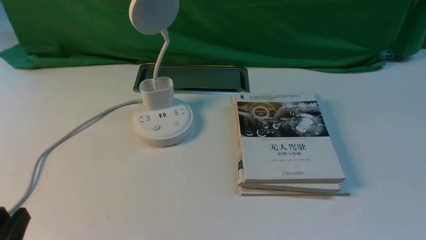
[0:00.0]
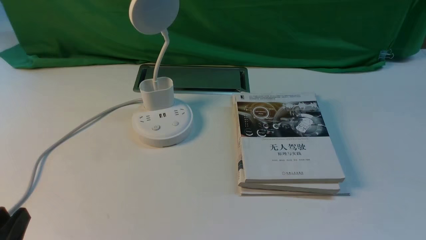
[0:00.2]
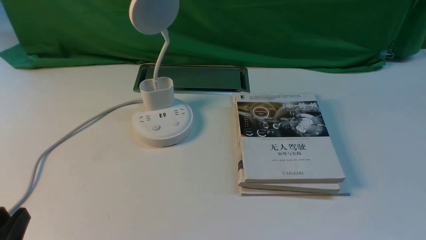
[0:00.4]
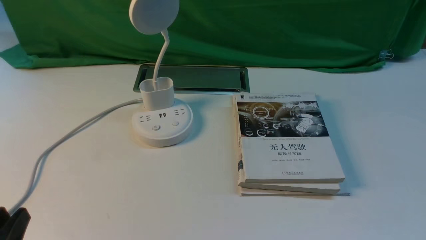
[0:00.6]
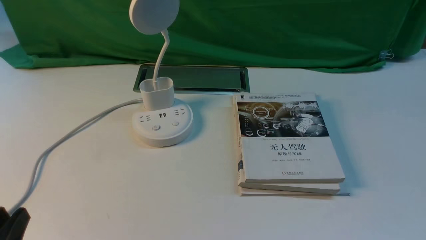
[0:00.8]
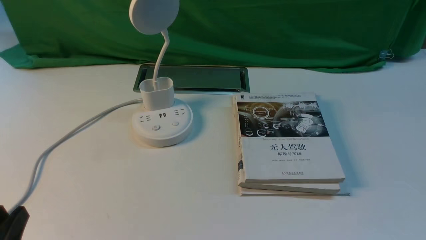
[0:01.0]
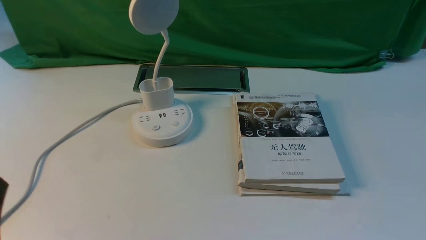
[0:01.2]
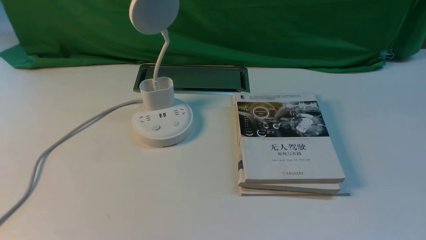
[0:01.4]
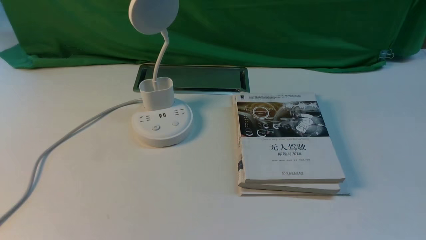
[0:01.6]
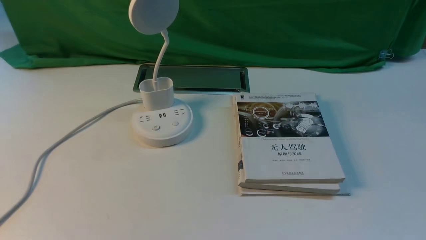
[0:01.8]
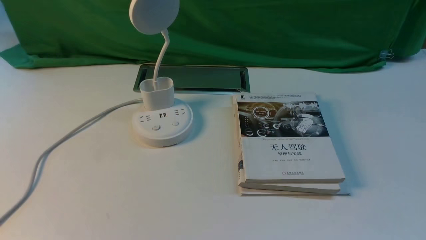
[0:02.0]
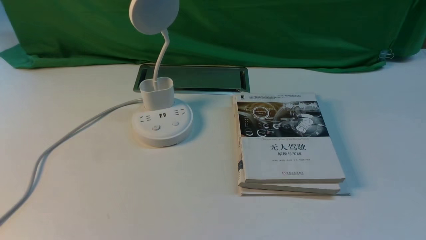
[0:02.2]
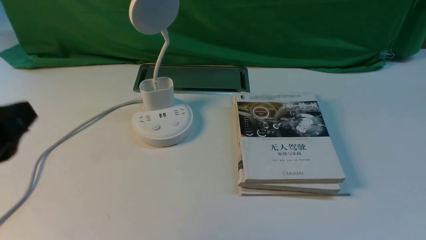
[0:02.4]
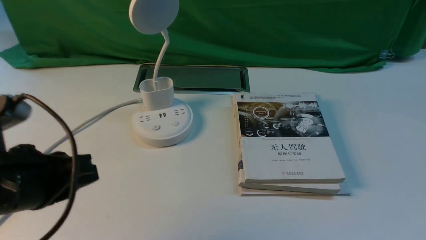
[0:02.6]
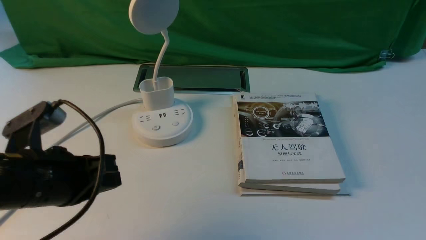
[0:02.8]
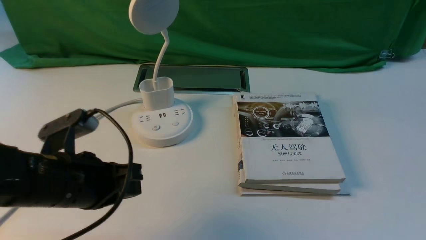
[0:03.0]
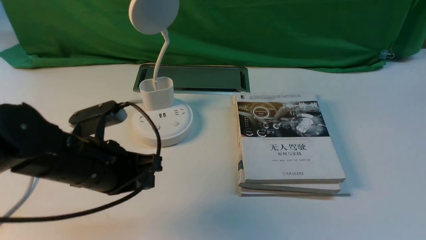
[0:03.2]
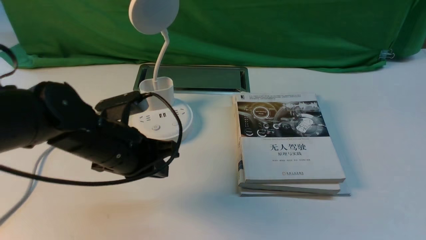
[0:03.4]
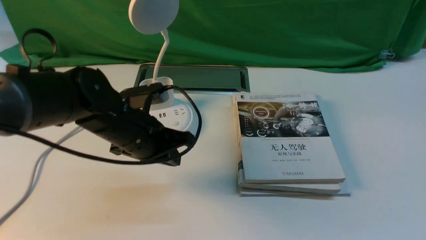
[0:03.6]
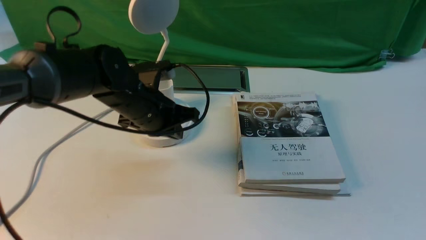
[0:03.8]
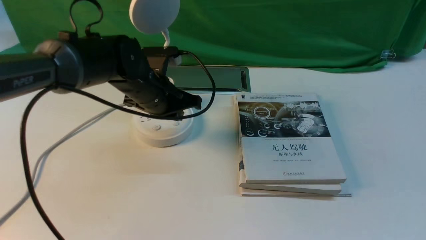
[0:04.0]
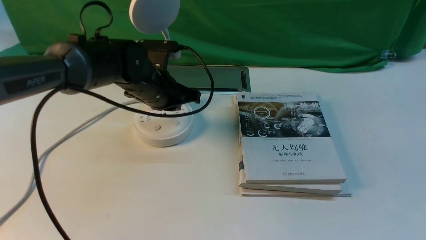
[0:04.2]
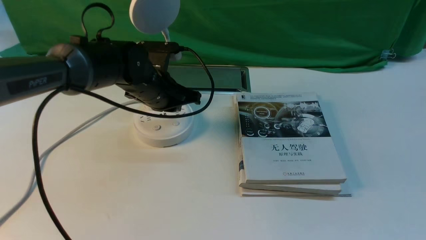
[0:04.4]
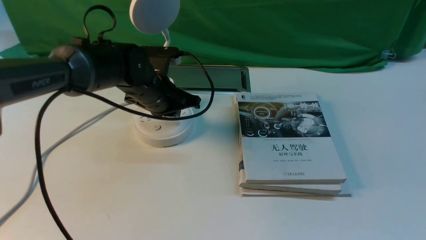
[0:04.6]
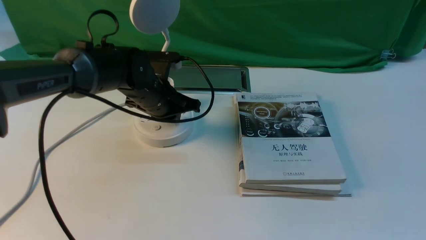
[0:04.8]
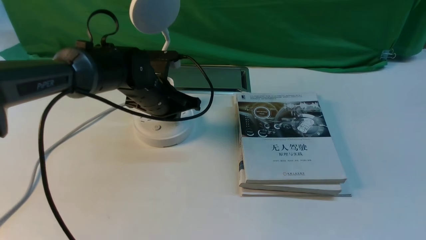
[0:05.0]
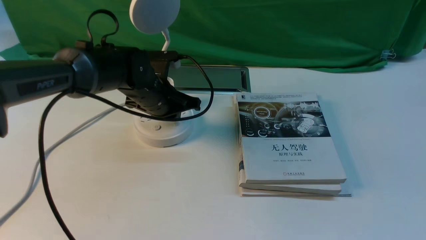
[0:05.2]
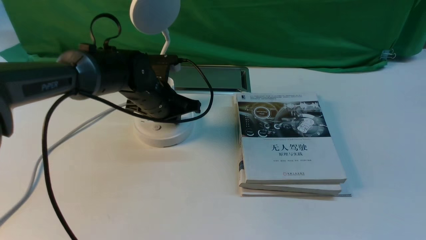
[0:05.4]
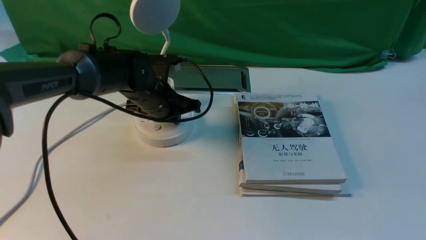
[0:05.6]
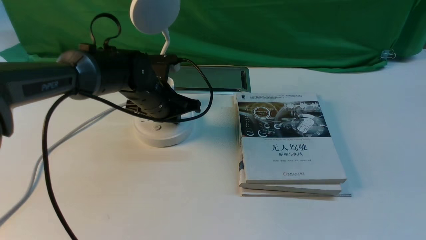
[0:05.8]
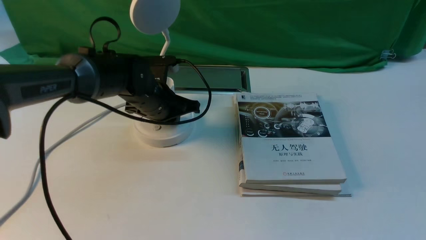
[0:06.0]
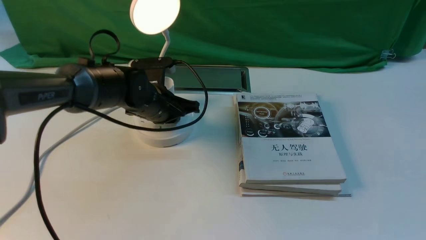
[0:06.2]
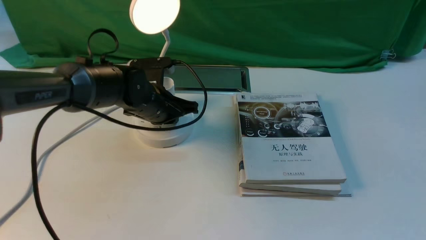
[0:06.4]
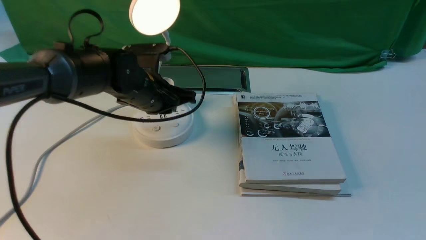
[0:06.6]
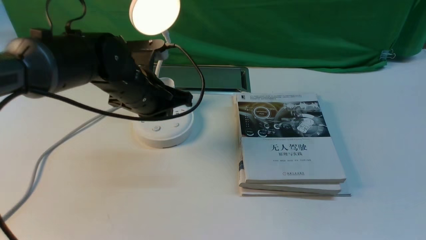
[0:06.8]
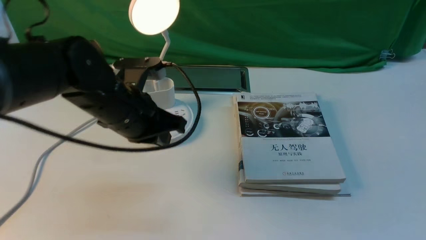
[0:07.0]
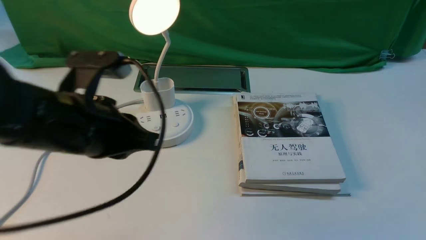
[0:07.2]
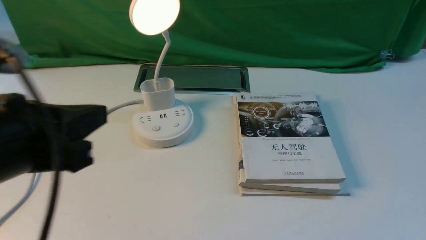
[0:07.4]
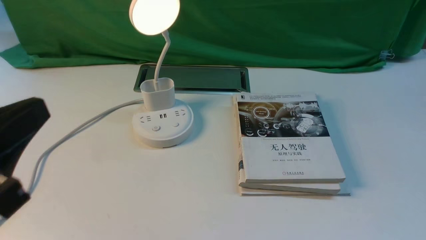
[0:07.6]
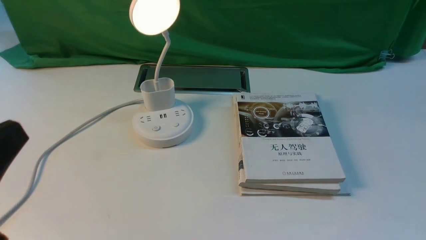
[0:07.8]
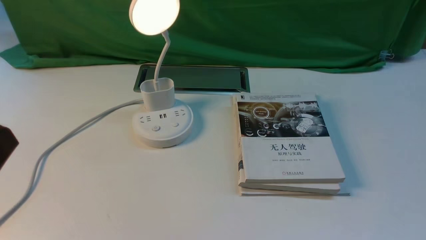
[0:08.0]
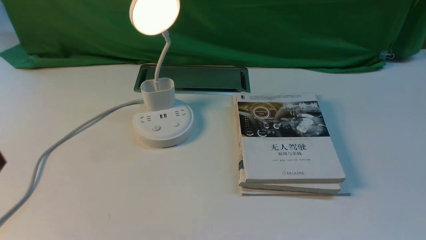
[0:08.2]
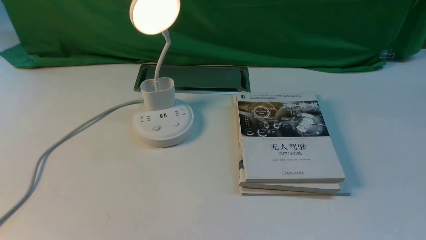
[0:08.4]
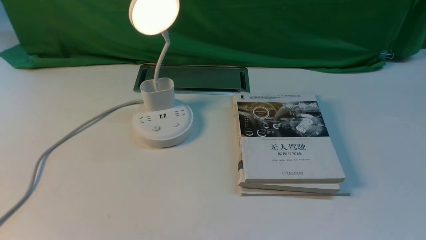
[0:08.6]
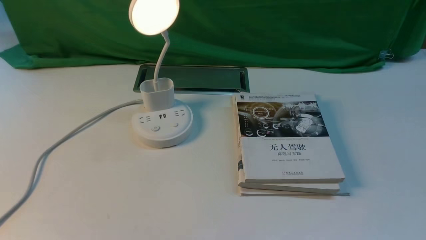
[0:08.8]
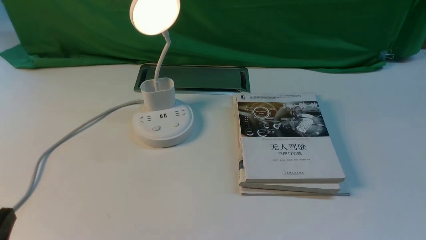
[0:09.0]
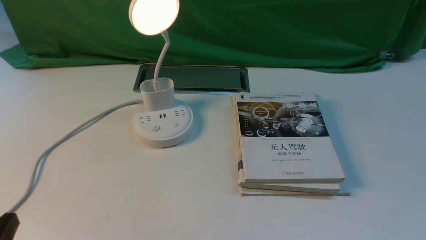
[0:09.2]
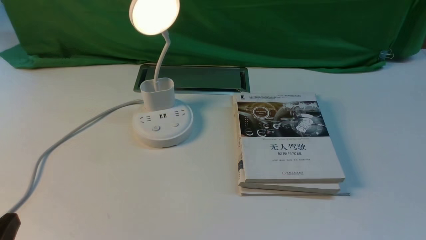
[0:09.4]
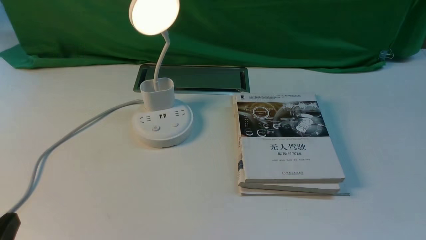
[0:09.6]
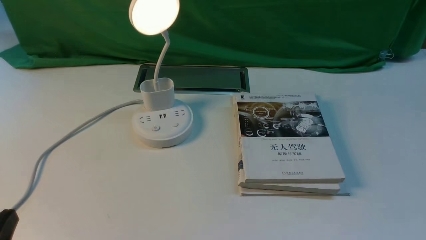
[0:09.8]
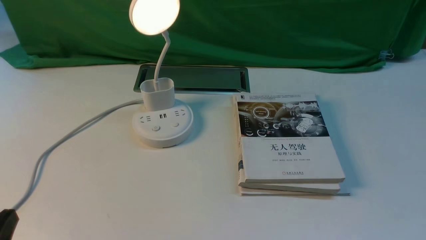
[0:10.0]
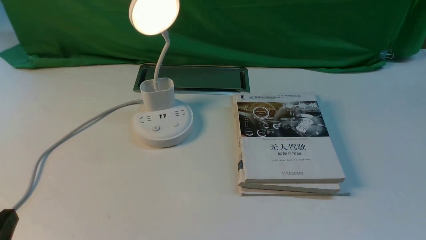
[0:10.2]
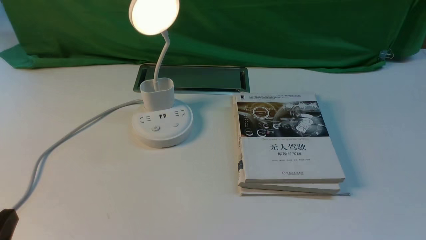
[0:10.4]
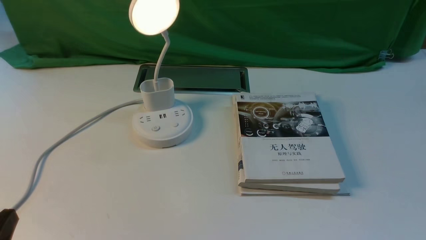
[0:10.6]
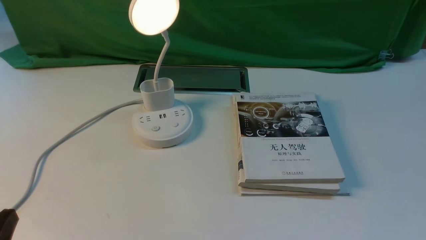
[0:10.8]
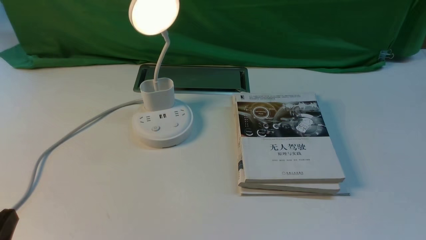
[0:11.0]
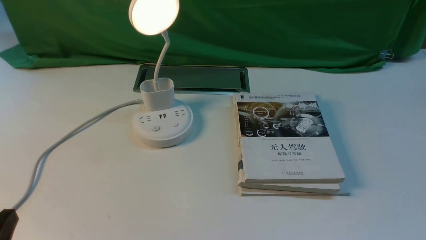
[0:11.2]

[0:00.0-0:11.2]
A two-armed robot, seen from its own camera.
Step, 0:00.0 to 0:07.0: use the left arm to press the button switch on the lamp holder.
0:00.0 to 0:01.6: The left gripper travels upward by some 10 cm.
0:01.6 to 0:03.2: The left gripper travels forward and to the right by roughly 25 cm, and closes.
0:03.2 to 0:04.8: The left gripper heads forward, covering about 15 cm.
0:04.8 to 0:06.4: The grippers stay close to where they were, moving slightly.
0:06.4 to 0:08.0: The left gripper is displaced backward by approximately 35 cm.
0:08.0 to 0:09.6: The left gripper is displaced downward by approximately 15 cm.
0:09.6 to 0:11.2: Both grippers stay about where they are.

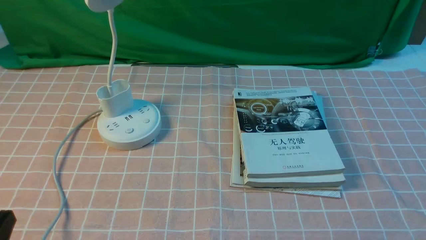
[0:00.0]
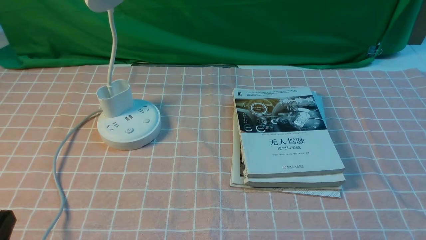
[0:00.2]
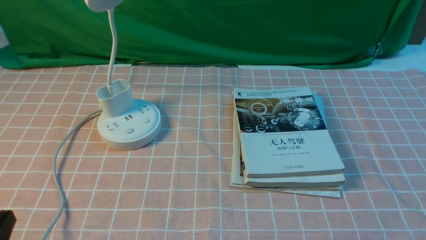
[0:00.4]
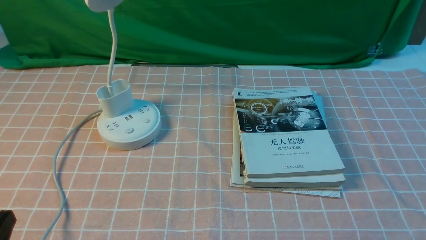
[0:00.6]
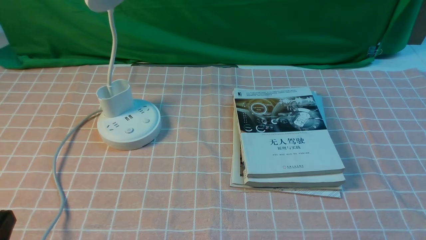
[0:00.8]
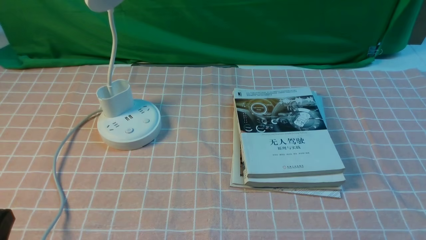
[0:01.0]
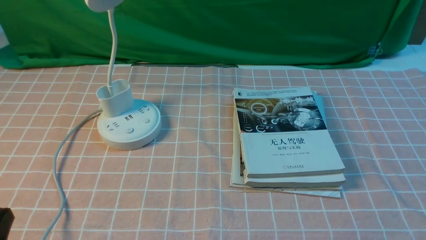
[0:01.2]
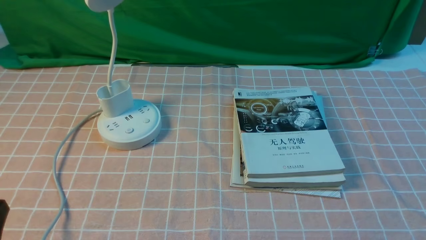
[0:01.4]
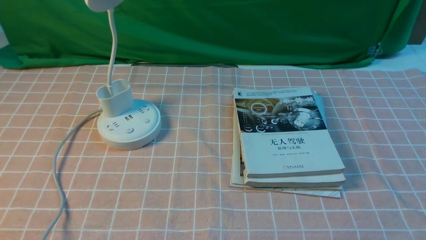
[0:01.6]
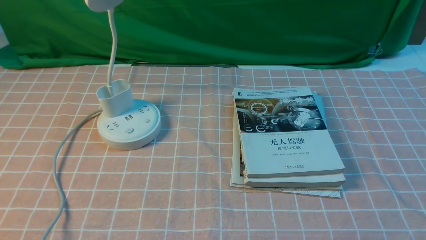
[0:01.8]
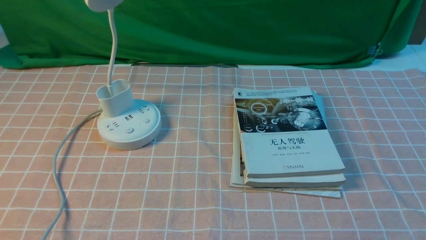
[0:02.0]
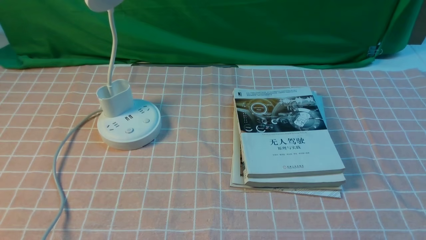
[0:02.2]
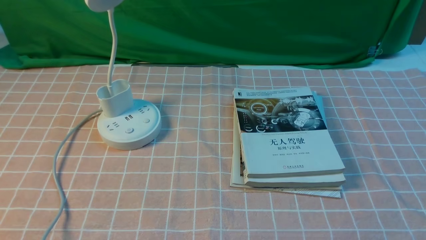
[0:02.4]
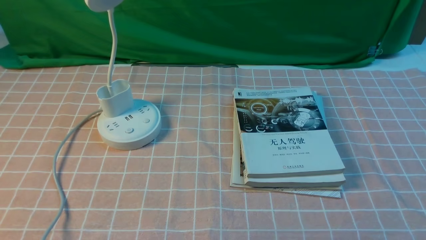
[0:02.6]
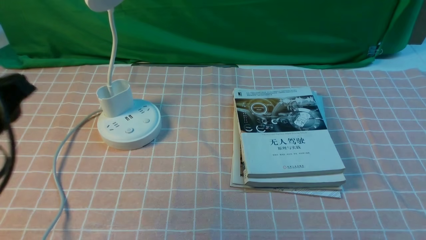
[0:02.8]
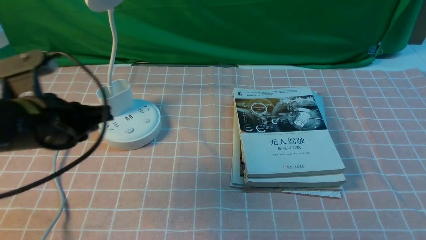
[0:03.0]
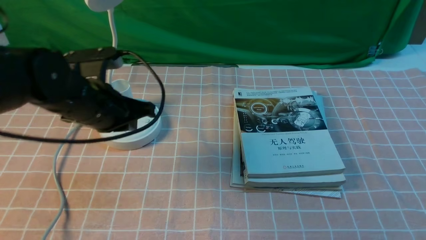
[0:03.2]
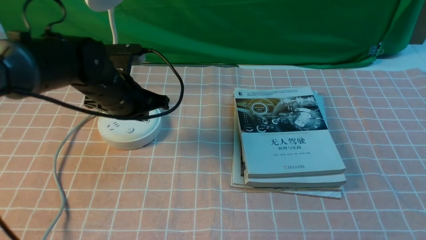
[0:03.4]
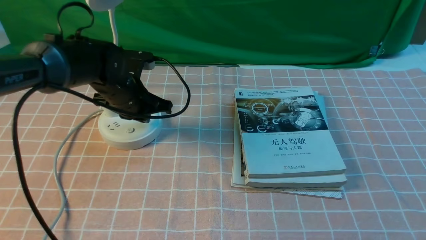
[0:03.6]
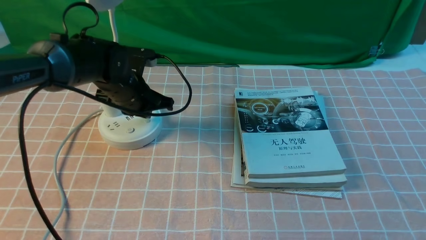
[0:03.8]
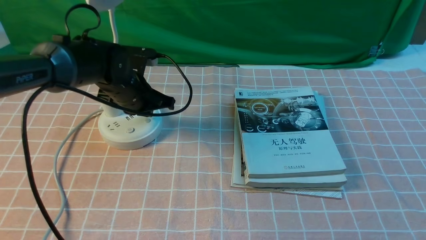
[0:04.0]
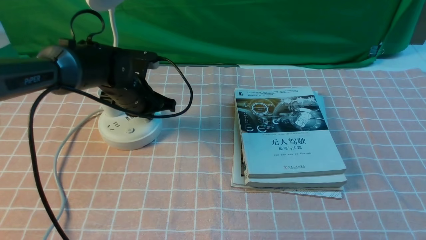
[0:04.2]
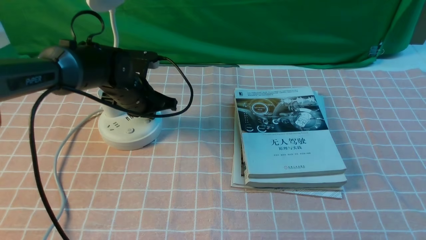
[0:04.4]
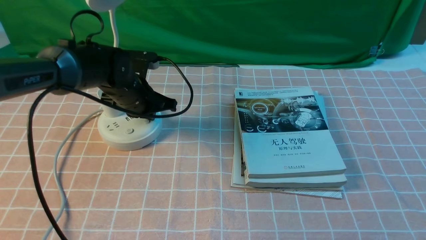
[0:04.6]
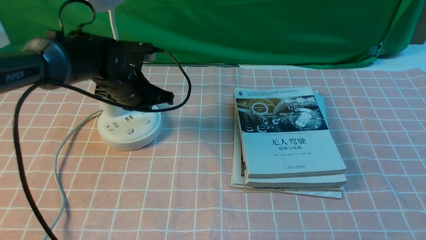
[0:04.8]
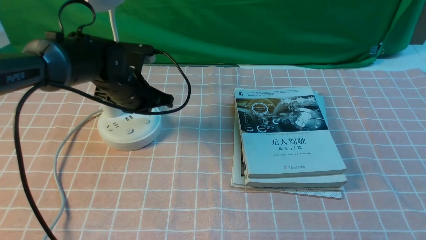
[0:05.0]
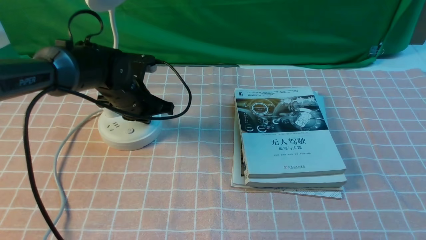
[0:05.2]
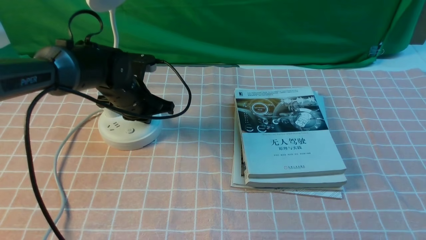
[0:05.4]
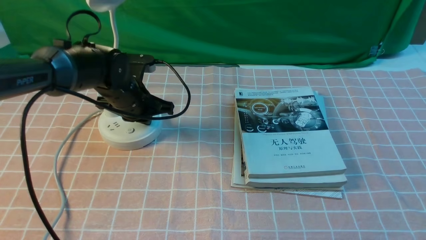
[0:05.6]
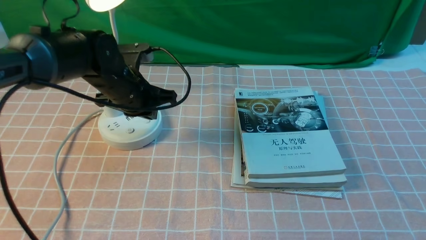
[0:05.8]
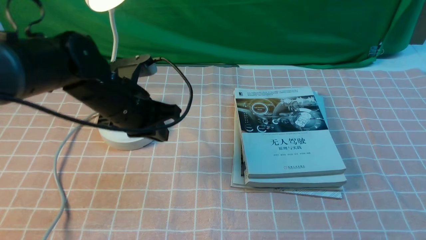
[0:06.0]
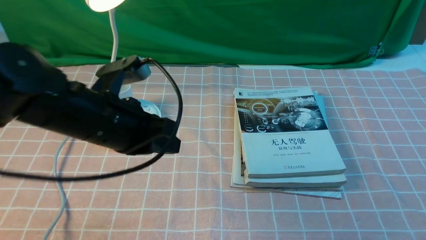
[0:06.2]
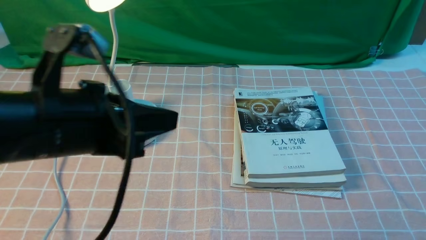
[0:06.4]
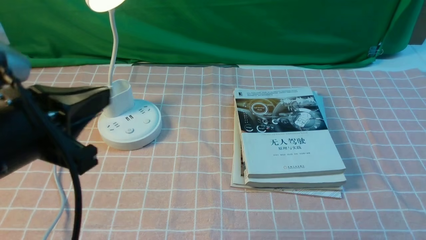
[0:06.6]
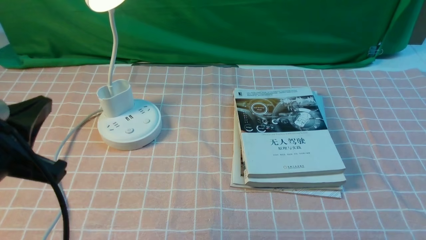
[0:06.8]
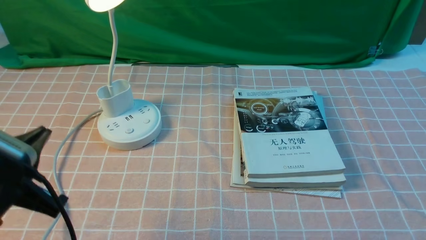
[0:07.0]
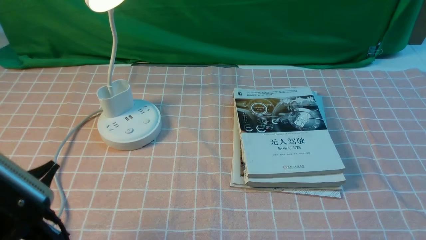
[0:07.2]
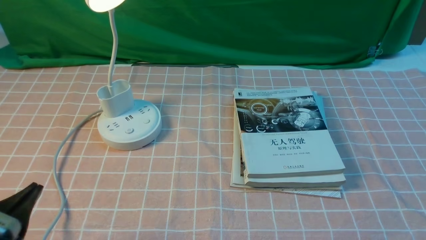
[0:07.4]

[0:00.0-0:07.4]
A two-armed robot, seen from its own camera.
Step, 0:00.0 to 0:05.8: use the left arm to press the button switch on the lamp holder.
0:01.4 to 0:03.0: The left gripper moves forward, roughly 20 cm.
0:03.0 to 0:04.4: The left gripper moves forward, downward and to the right, some 20 cm.
0:04.4 to 0:06.0: The left gripper is displaced backward and upward by some 10 cm.
0:06.0 to 0:07.4: The left gripper travels backward and to the left by some 25 cm.
